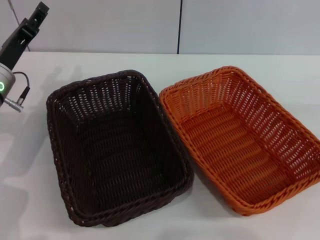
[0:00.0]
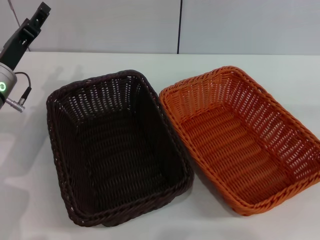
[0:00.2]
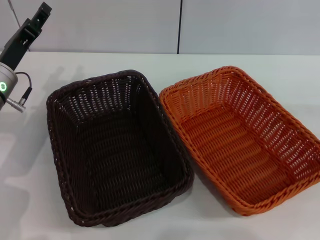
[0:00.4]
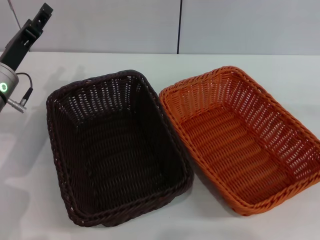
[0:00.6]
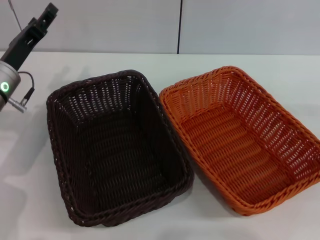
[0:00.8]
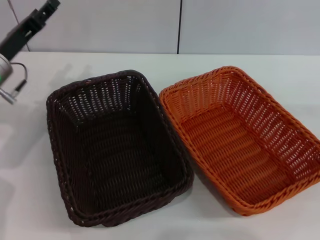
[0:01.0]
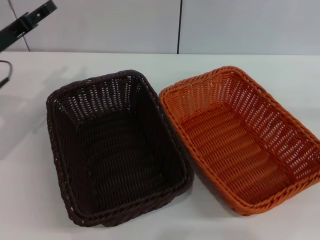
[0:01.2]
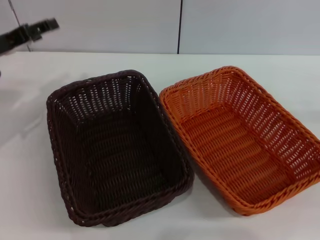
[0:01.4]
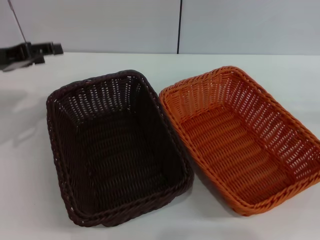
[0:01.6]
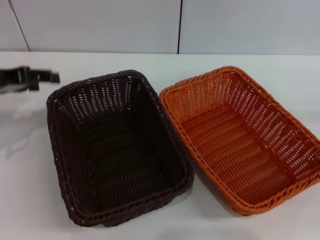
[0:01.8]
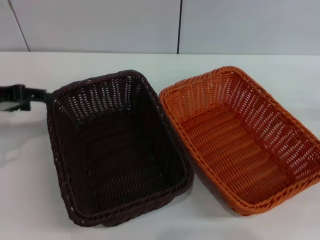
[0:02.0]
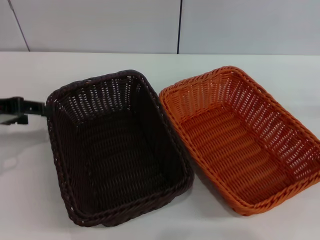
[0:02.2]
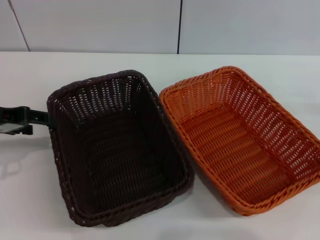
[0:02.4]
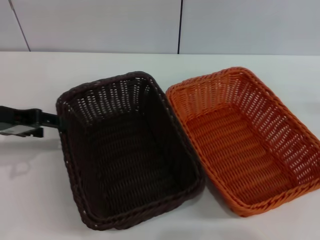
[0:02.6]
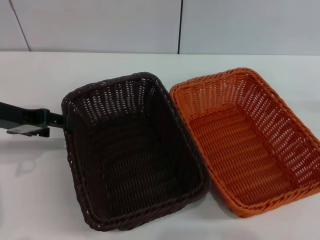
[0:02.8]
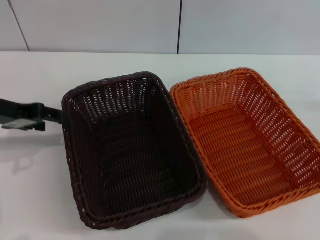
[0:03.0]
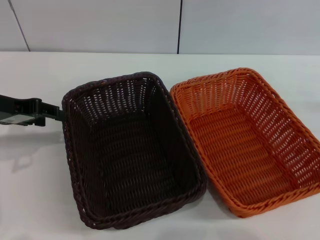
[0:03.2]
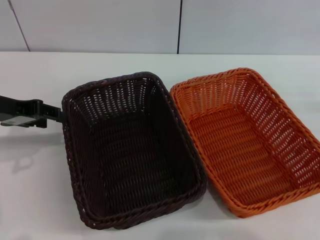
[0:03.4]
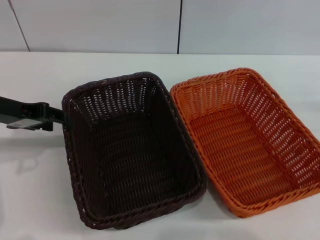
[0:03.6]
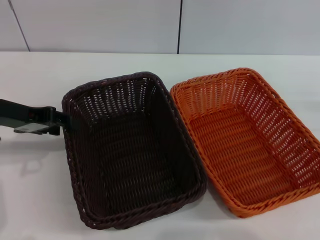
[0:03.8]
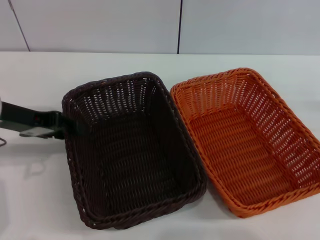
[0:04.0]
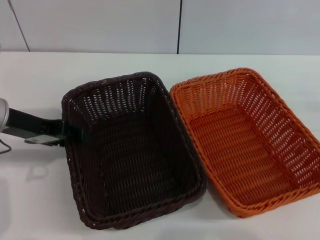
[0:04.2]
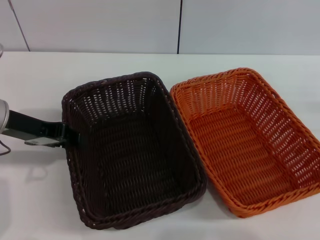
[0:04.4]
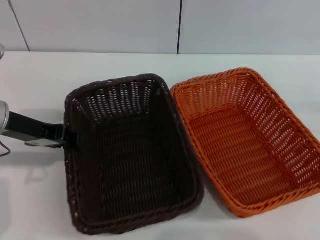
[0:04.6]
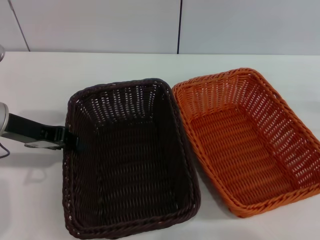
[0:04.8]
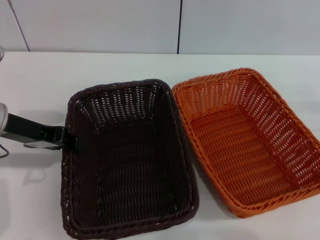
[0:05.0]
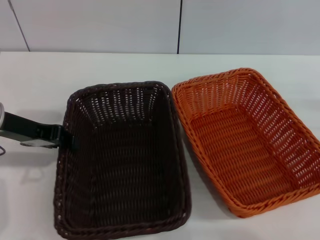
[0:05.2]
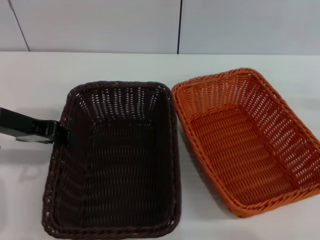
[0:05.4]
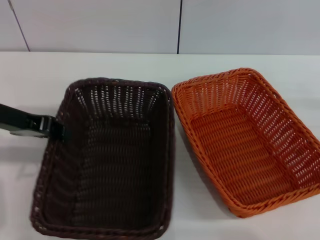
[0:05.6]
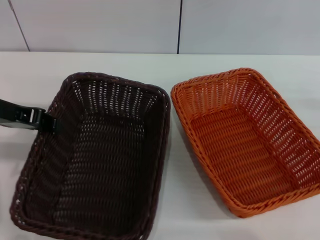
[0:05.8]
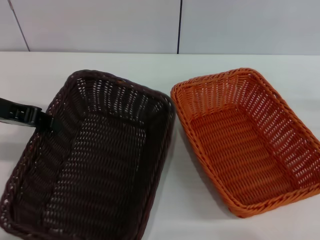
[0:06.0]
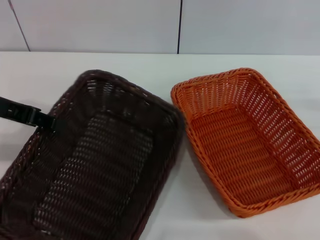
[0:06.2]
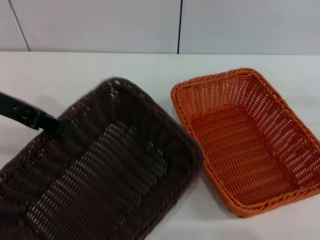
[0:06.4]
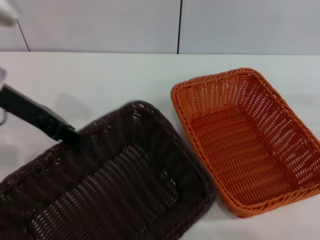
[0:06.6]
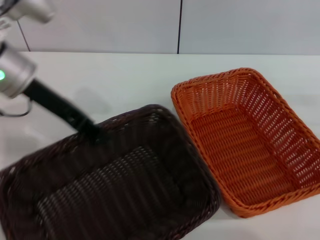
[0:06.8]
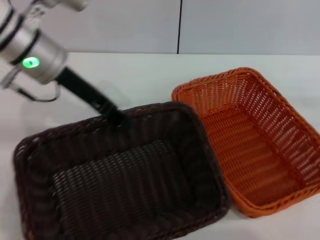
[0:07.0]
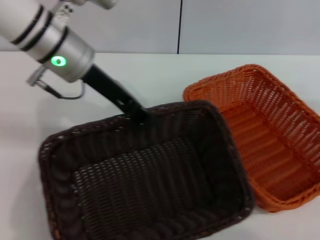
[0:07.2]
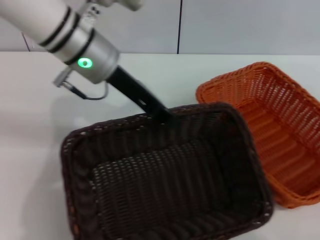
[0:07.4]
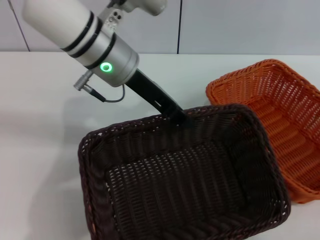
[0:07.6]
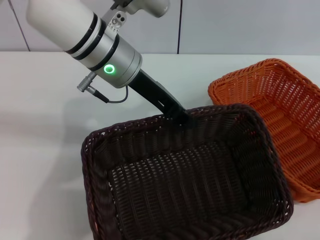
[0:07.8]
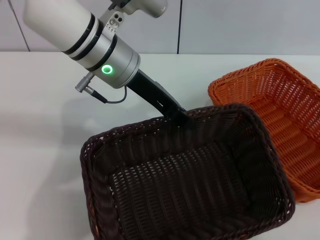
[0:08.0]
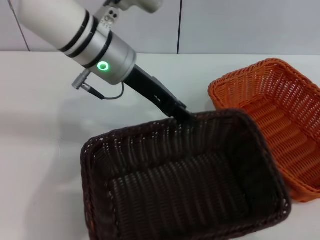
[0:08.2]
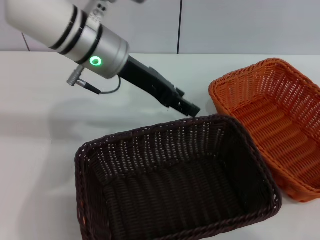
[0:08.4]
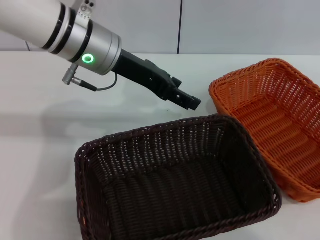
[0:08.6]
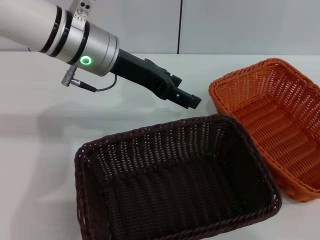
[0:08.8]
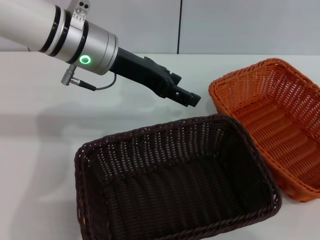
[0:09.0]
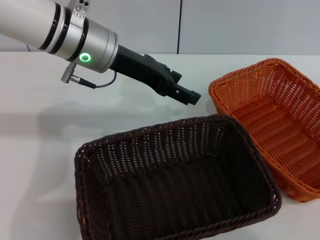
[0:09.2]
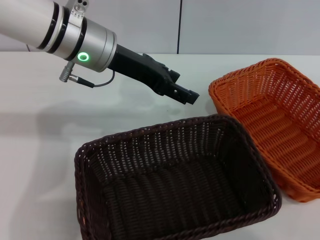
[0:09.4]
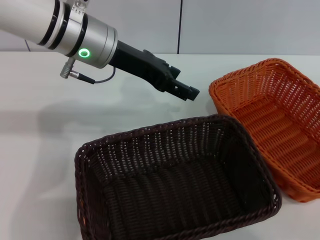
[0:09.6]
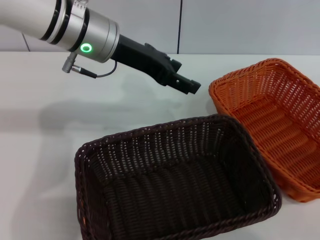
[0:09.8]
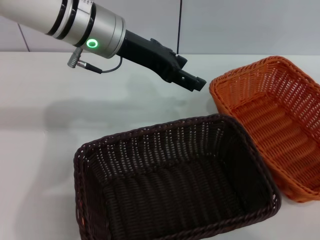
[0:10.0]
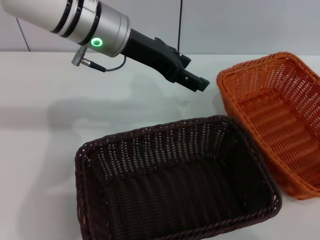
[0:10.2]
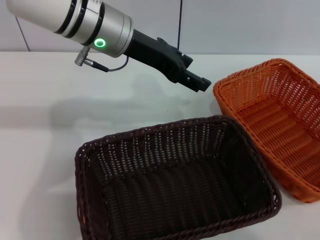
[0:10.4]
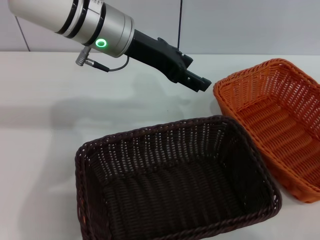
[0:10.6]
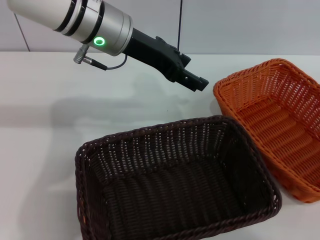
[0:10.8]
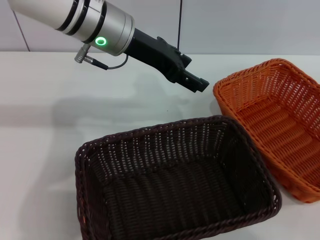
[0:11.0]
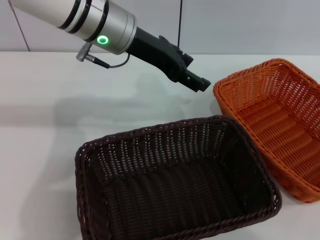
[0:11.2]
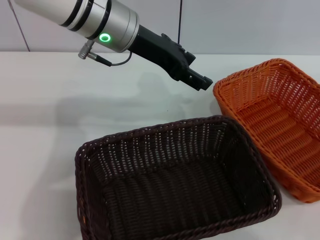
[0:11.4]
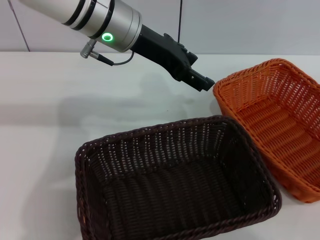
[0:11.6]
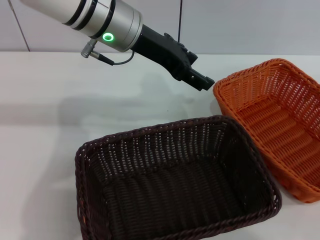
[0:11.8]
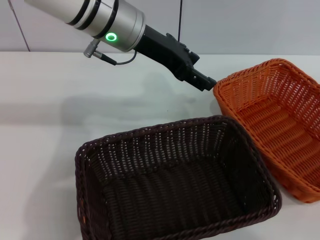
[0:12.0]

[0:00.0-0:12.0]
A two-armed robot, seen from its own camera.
Step, 0:00.0 to 0:06.4: Pick up the dark basket with the left gripper.
Step, 0:06.6 to 0:08.2: Place the dark basket in the center of view with the left gripper.
0:00.0 to 0:01.6: The left gripper heads upward and to the left, covering roughly 10 cm.
0:03.0 to 0:04.4: There are only small adjustments of the grippers.
0:04.4 to 0:06.0: The left gripper moves about 5 cm, and closes its fingers.
0:06.0 to 0:07.6: The left gripper shifts about 20 cm to the right.
0:07.6 to 0:09.0: The right gripper moves upward, some 10 cm. Meanwhile the left gripper opens its fingers.
0:10.4 to 0:12.0: The grippers make only small movements.

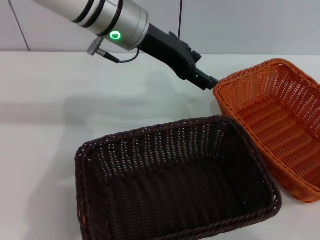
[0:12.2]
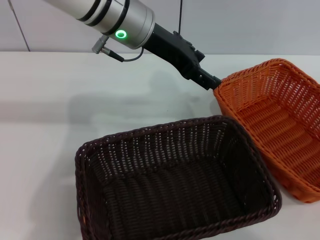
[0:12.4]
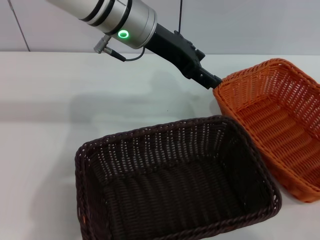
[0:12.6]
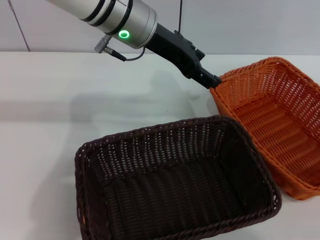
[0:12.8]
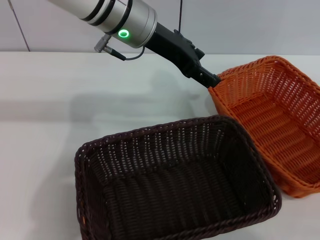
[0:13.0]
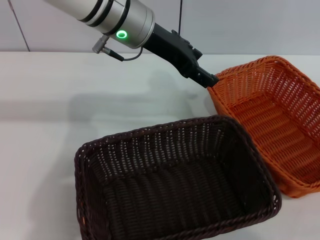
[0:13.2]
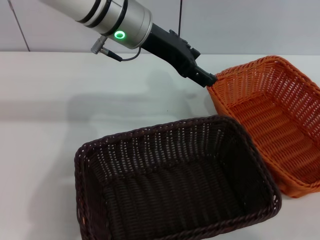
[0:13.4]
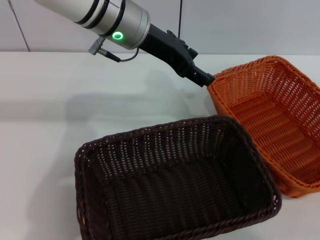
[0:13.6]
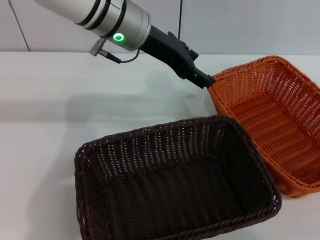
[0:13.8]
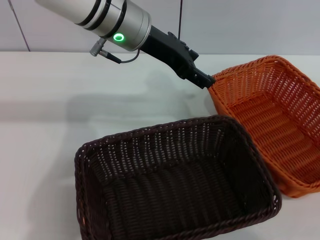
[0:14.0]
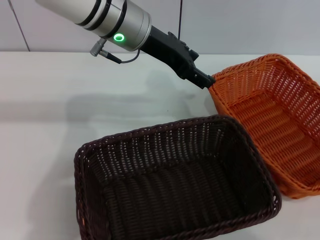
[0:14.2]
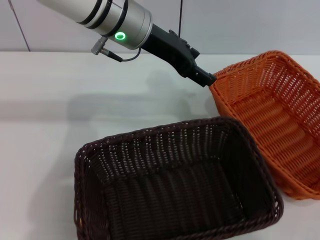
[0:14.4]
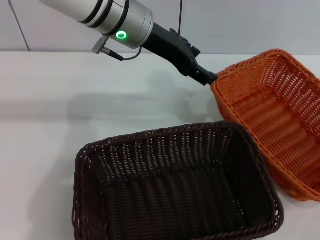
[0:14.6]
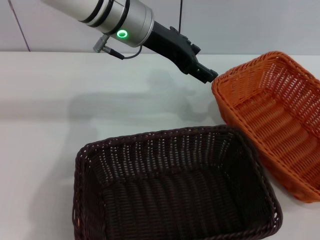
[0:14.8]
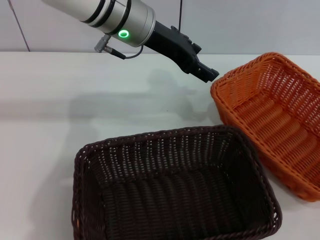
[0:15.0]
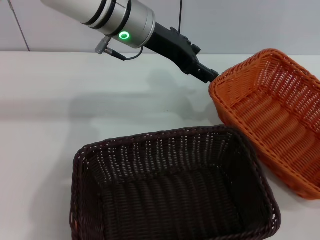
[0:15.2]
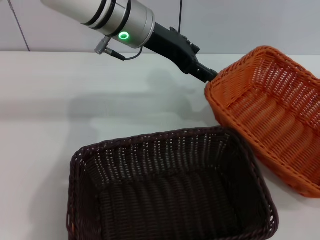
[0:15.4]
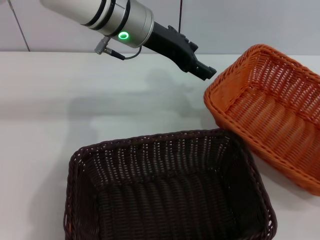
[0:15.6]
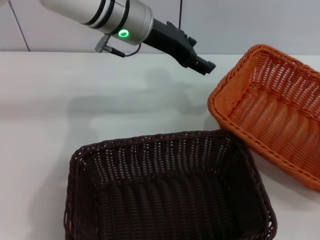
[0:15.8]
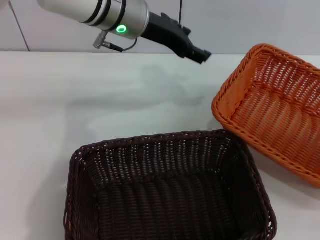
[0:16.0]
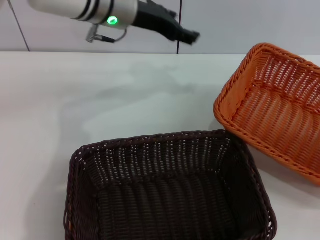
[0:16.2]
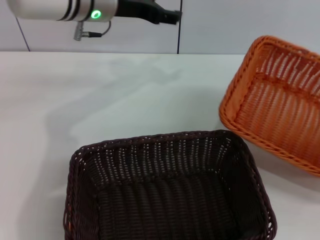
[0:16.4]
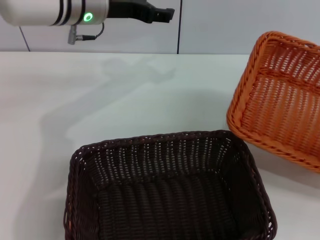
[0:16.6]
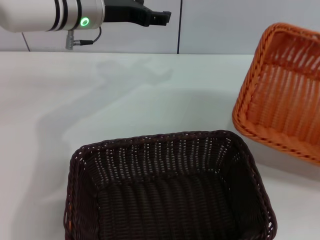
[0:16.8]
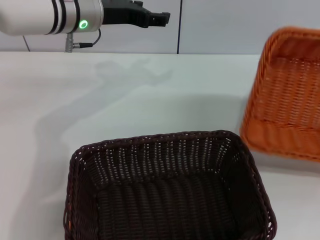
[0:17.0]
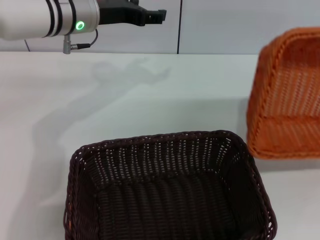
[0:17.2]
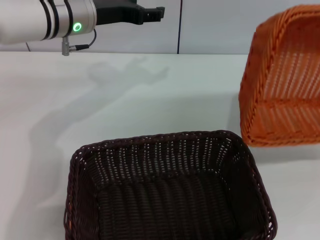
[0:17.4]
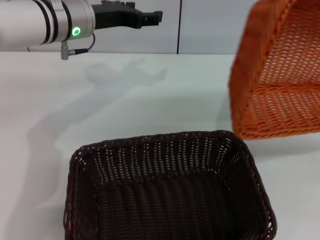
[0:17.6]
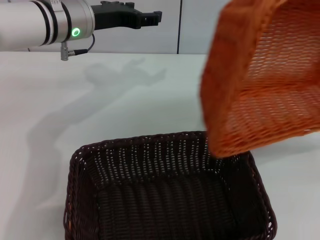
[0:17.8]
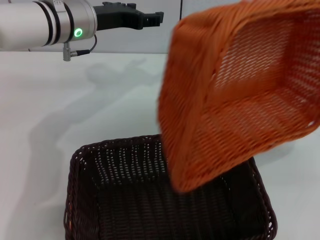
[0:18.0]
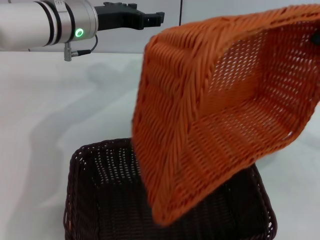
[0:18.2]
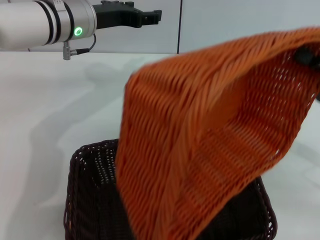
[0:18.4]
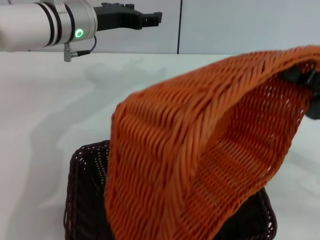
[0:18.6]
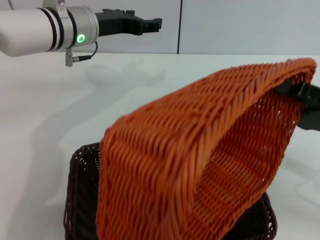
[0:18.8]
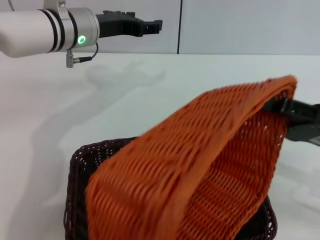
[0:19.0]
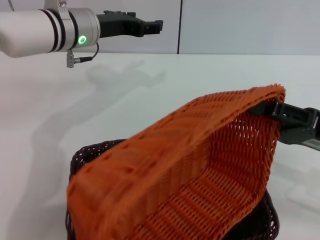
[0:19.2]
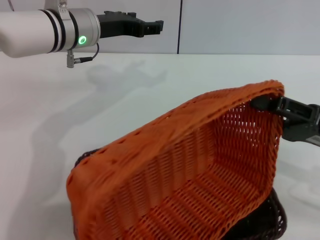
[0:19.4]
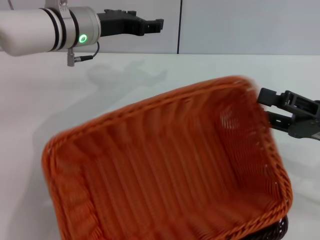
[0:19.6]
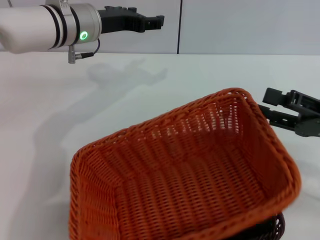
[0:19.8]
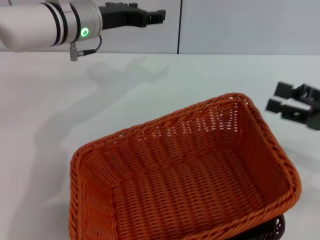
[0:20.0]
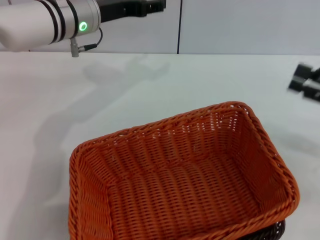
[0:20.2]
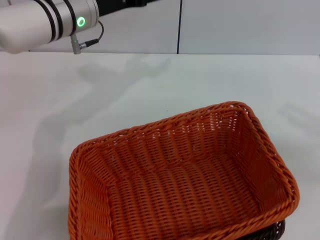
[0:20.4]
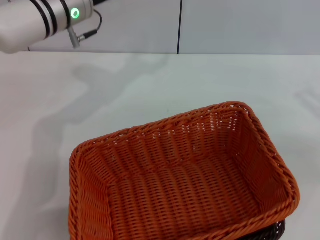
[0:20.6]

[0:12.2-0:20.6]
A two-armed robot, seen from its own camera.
Step, 0:12.2 to 0:14.8: Pick up the light basket with the right gripper.
Step, 0:15.0 to 0:20.0: Place the light basket on the dark basket with the right gripper.
0:12.2 to 0:13.6: The right gripper changes place by approximately 5 cm.
0:13.6 to 0:15.0: The right gripper closes.
0:15.0 to 0:16.4: The left gripper travels to the left by approximately 5 cm.
0:16.4 to 0:17.8: The right gripper heads to the left, covering about 5 cm.
0:17.8 to 0:19.2: The right gripper goes about 10 cm to the left.
0:19.2 to 0:20.6: The right gripper heads to the right, covering some 10 cm, and opens up.
